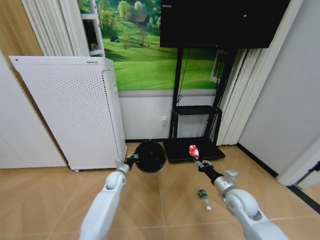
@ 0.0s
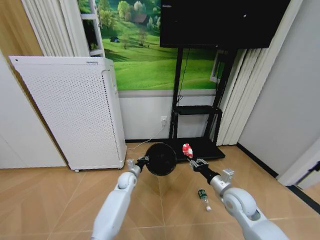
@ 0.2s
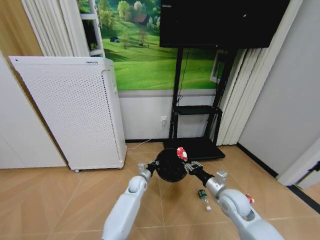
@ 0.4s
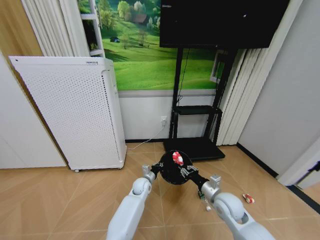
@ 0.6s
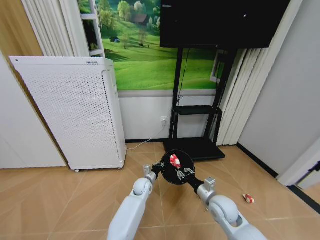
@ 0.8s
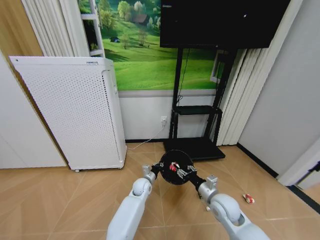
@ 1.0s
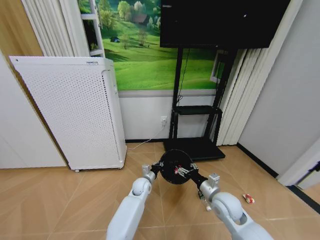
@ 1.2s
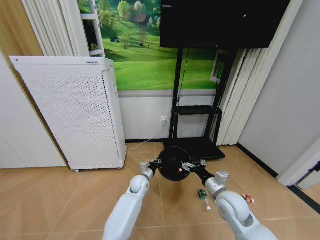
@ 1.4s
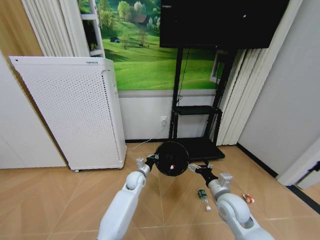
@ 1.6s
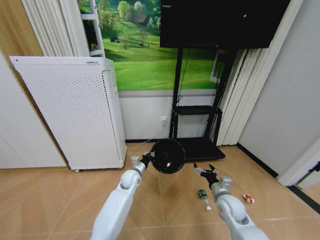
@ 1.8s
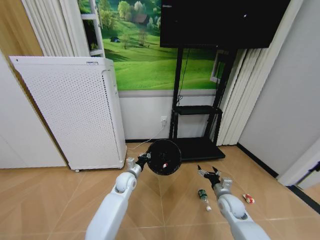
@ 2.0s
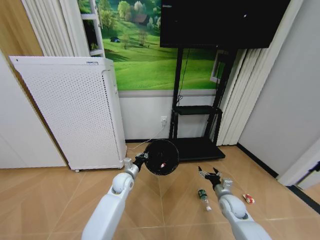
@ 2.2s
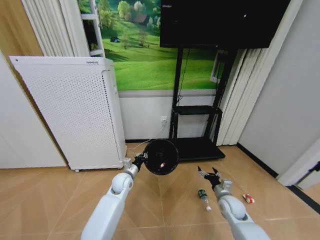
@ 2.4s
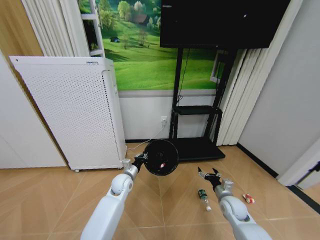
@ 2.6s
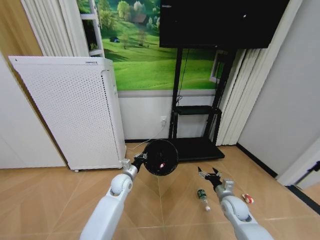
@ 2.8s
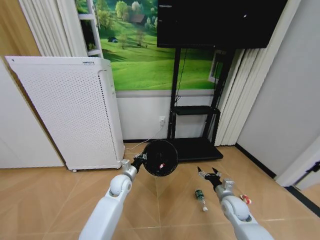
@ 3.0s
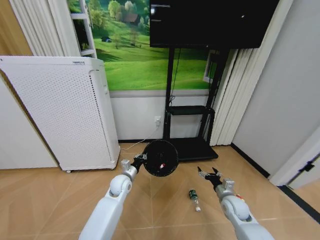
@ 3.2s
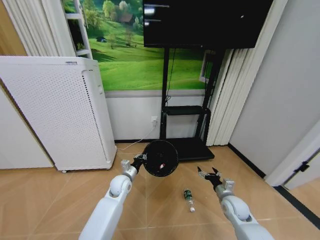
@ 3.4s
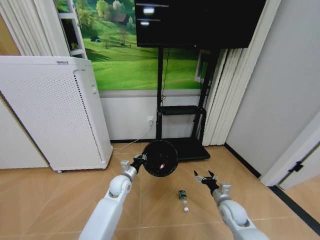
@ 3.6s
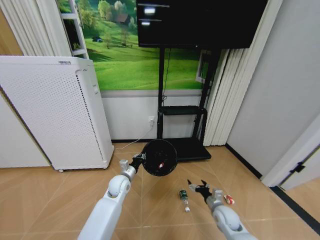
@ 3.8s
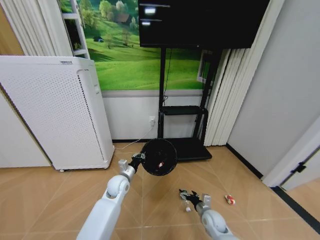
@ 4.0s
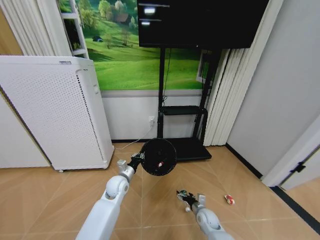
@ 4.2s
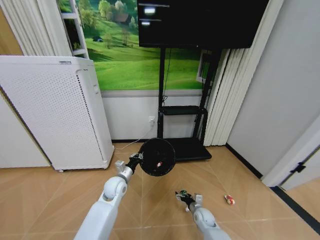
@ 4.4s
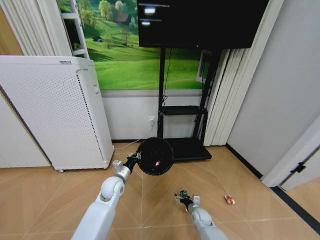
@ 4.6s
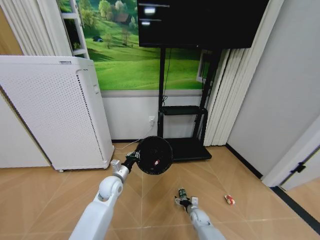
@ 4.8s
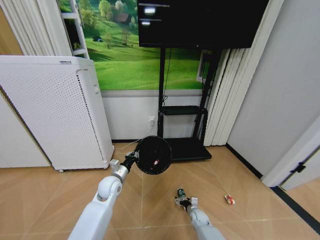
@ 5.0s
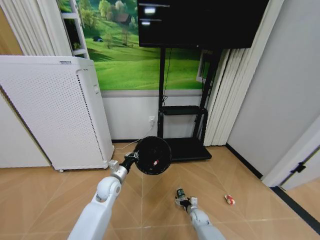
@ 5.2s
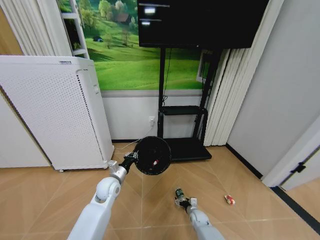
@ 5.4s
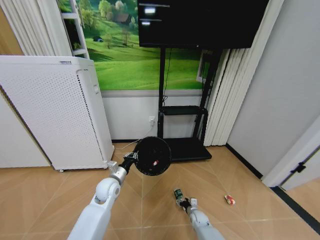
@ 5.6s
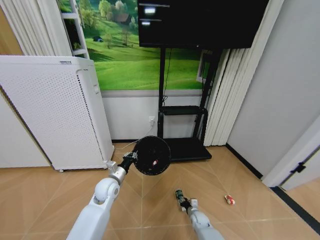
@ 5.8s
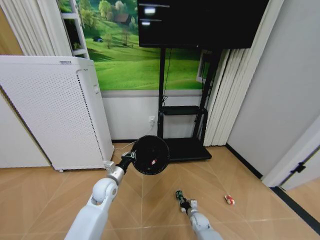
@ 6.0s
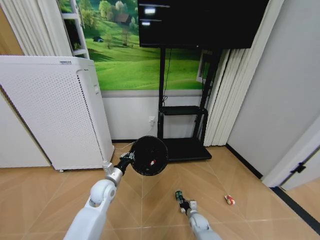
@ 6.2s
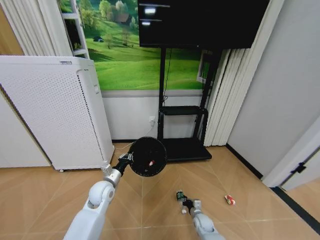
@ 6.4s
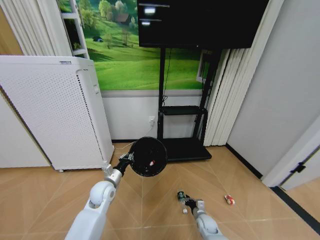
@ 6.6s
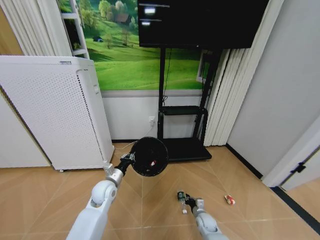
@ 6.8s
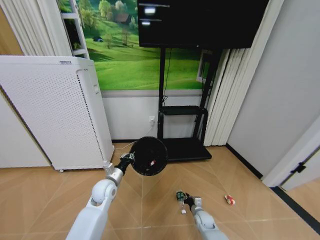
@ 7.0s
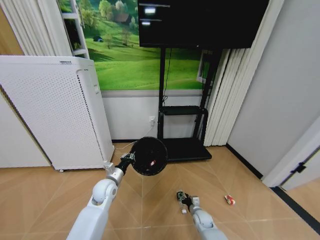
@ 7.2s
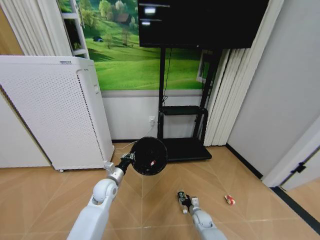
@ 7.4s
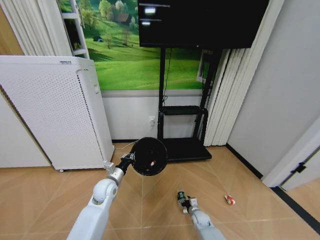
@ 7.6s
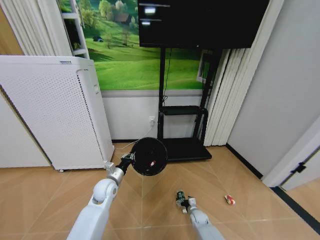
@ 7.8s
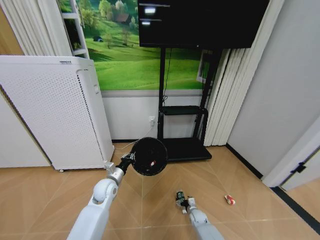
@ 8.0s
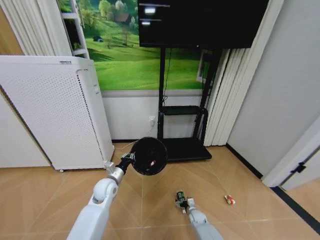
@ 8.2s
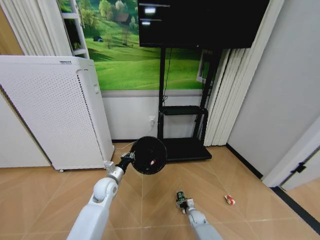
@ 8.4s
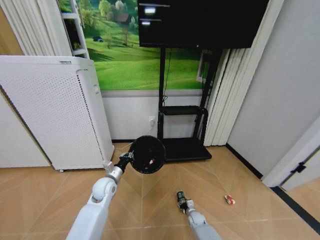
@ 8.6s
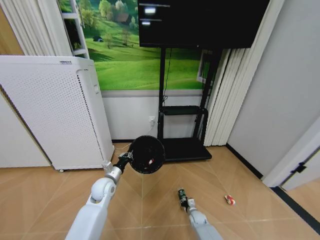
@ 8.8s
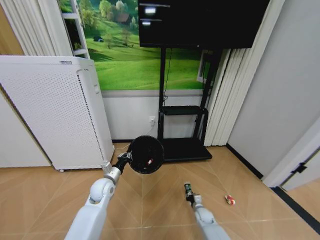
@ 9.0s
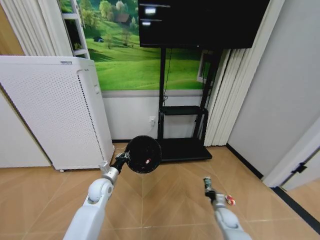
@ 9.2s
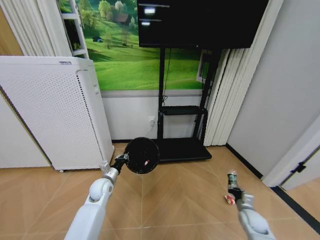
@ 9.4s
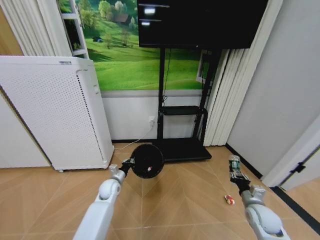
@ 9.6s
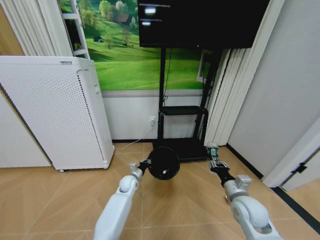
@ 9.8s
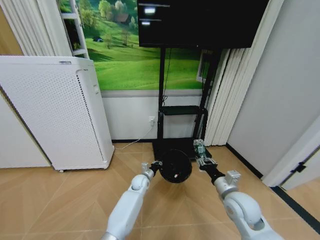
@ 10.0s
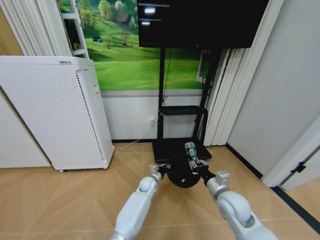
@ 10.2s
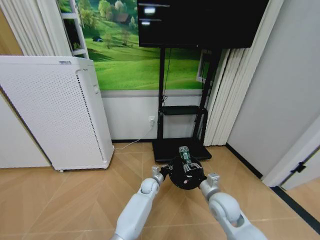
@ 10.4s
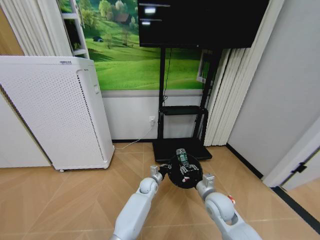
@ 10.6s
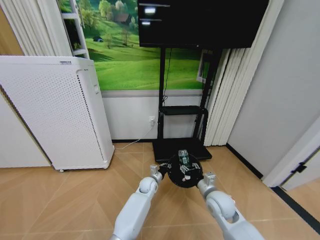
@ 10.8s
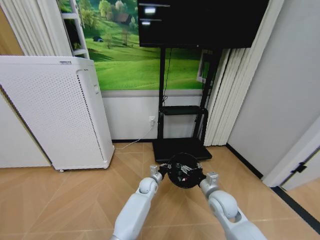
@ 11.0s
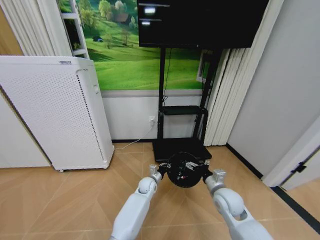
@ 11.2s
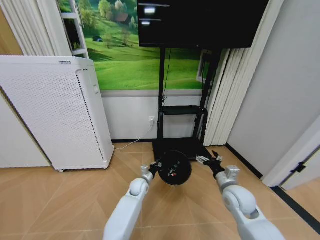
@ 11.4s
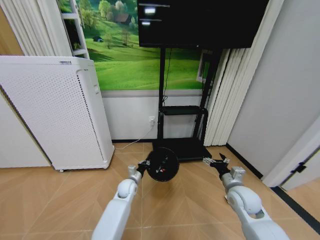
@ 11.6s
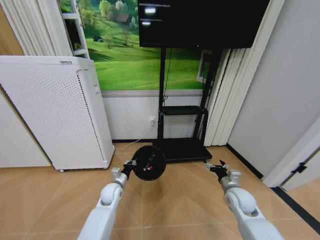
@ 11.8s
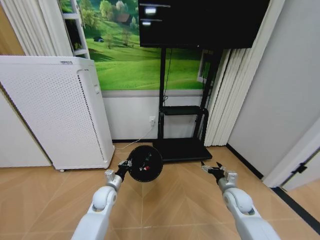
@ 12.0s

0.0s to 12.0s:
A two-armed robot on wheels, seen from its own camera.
Task of the whole recording: Pick up the trash bin and place the garbage on the floor into it.
0.0s to 1.6s: The left gripper goes about 10 cm to the right. Meanwhile the right gripper shifts by some 5 cm, and opens up.
1.6s to 3.0s: The left gripper moves to the left, approximately 5 cm. Meanwhile the right gripper moves downward and to the right, some 10 cm.
3.0s to 4.4s: The right gripper travels downward and to the left by about 15 cm.
4.4s to 6.0s: The right gripper heads downward, covering approximately 5 cm, and closes up.
6.0s to 7.6s: The right gripper opens up.
7.6s to 9.0s: The right gripper closes its fingers.
9.0s to 10.4s: The right gripper travels upward by approximately 30 cm. Meanwhile the left gripper shifts approximately 25 cm to the right and downward.
10.4s to 12.0s: The right gripper travels to the right by about 10 cm, and opens up. Meanwhile the left gripper heads to the left and backward, covering approximately 20 cm.

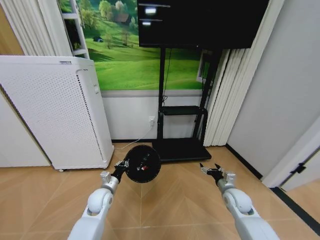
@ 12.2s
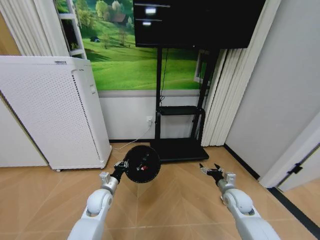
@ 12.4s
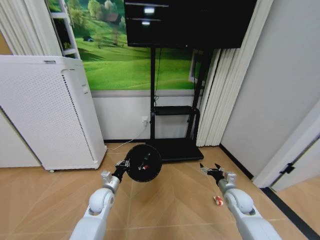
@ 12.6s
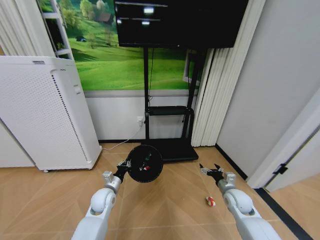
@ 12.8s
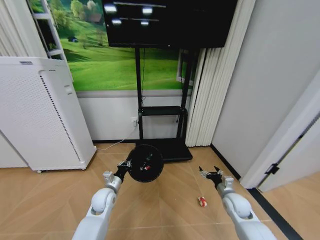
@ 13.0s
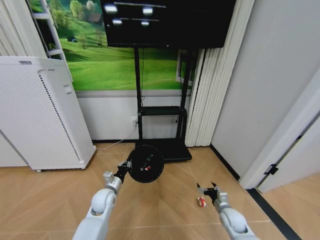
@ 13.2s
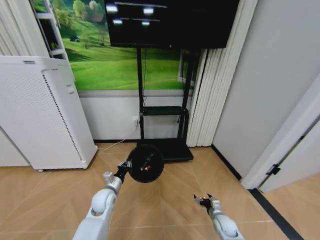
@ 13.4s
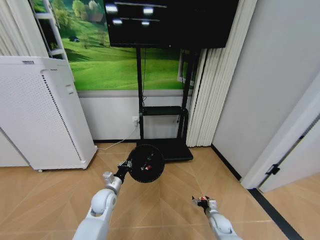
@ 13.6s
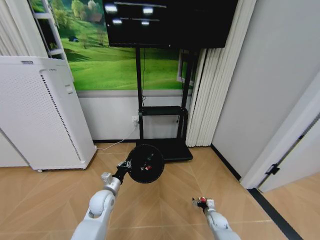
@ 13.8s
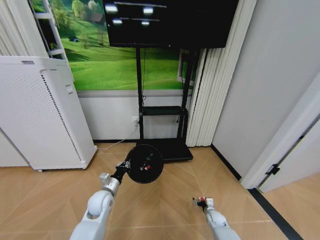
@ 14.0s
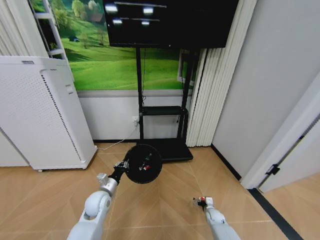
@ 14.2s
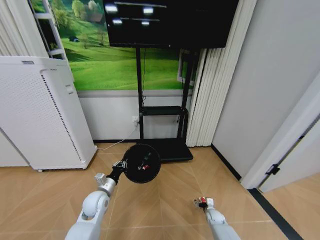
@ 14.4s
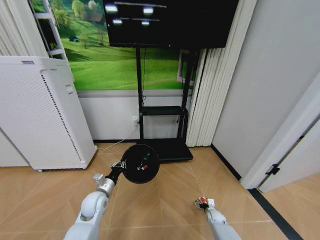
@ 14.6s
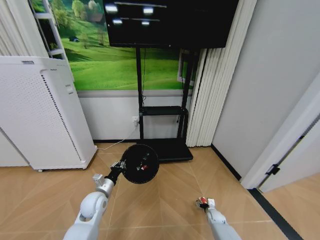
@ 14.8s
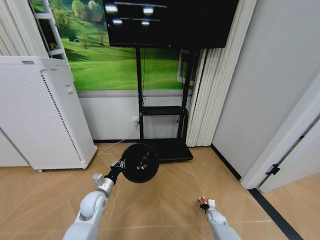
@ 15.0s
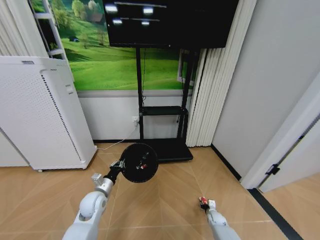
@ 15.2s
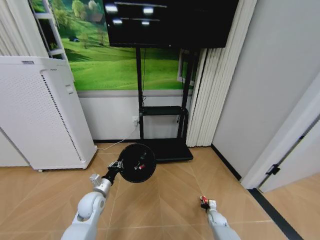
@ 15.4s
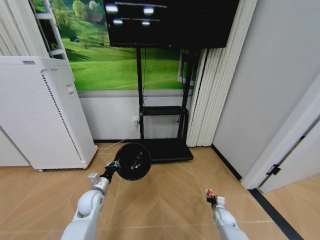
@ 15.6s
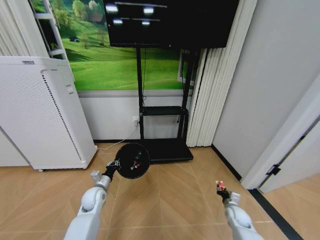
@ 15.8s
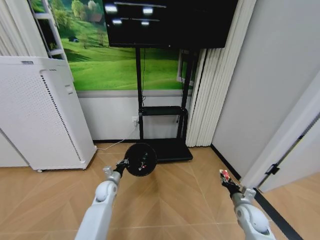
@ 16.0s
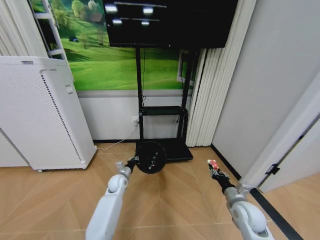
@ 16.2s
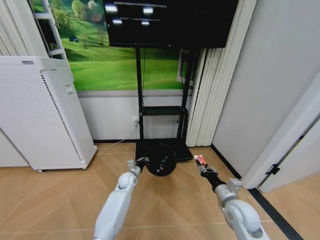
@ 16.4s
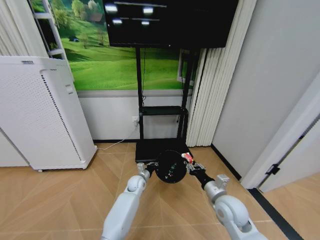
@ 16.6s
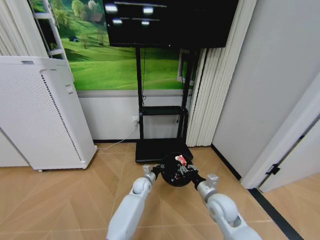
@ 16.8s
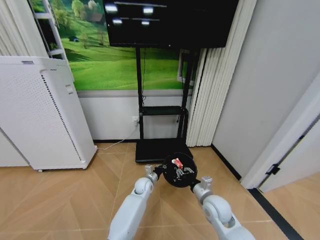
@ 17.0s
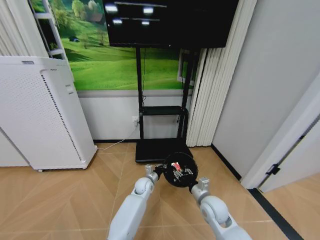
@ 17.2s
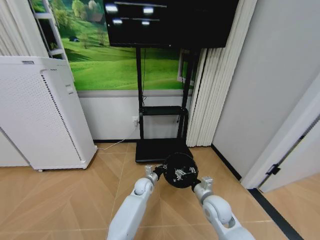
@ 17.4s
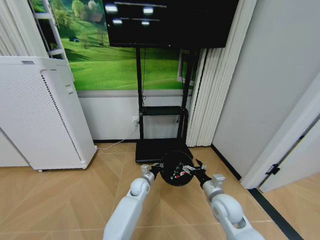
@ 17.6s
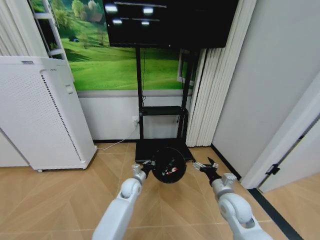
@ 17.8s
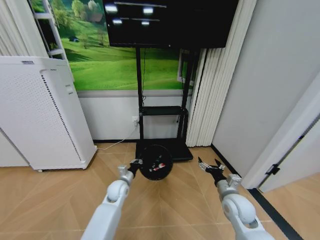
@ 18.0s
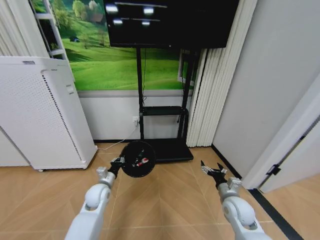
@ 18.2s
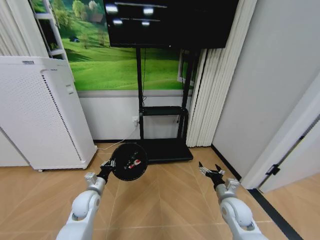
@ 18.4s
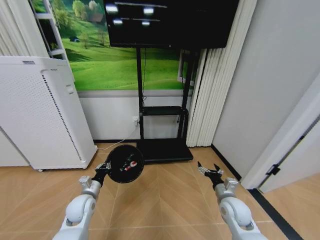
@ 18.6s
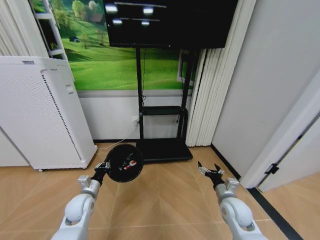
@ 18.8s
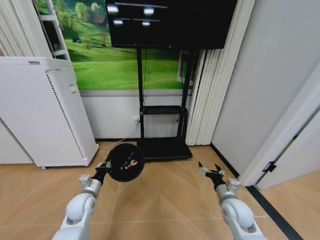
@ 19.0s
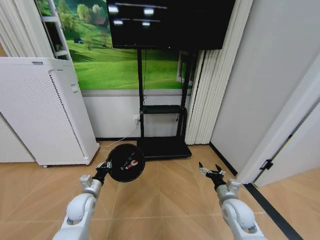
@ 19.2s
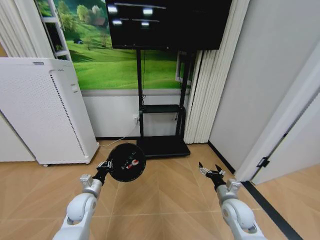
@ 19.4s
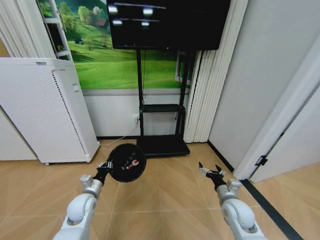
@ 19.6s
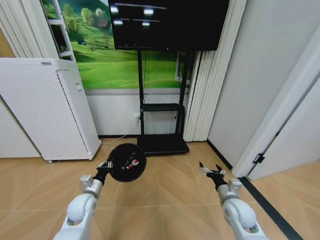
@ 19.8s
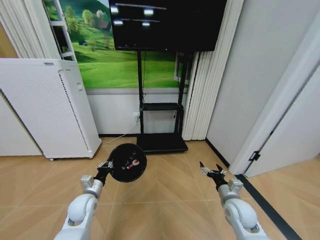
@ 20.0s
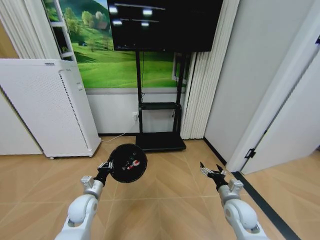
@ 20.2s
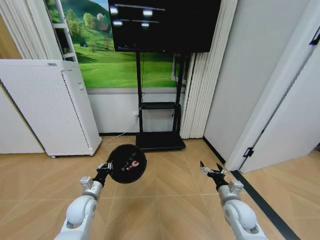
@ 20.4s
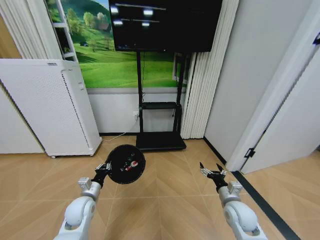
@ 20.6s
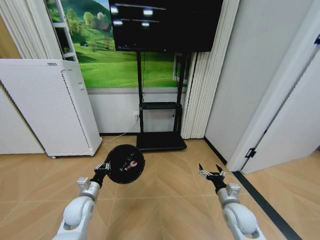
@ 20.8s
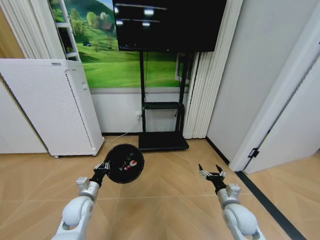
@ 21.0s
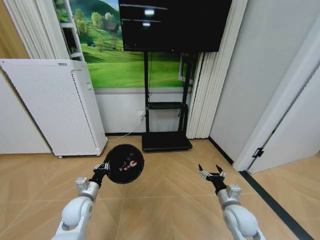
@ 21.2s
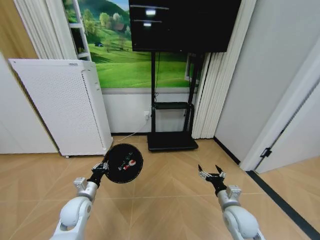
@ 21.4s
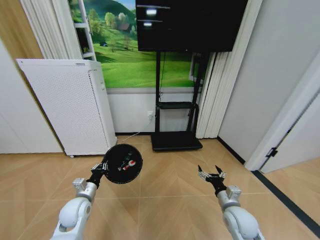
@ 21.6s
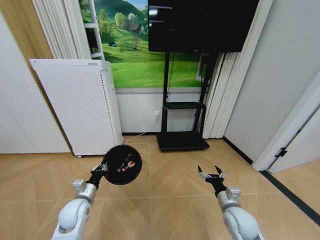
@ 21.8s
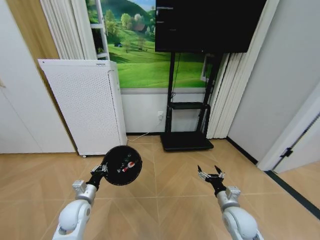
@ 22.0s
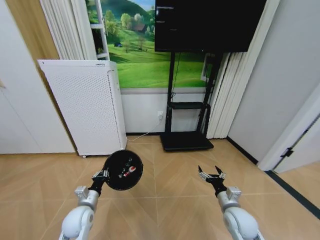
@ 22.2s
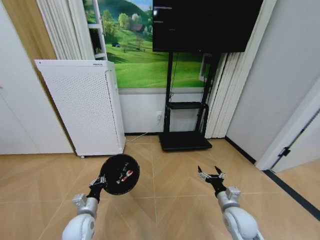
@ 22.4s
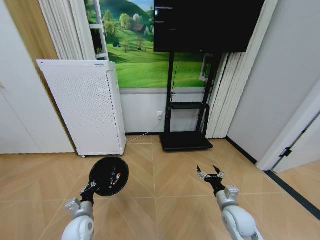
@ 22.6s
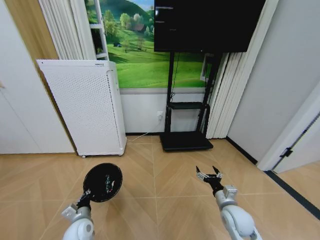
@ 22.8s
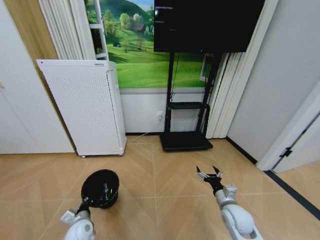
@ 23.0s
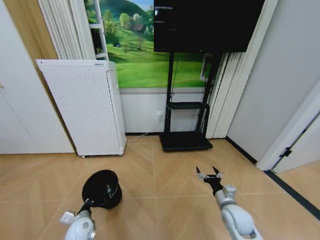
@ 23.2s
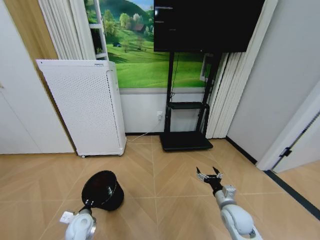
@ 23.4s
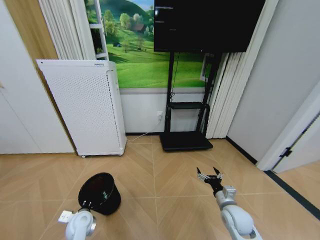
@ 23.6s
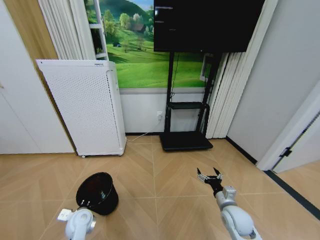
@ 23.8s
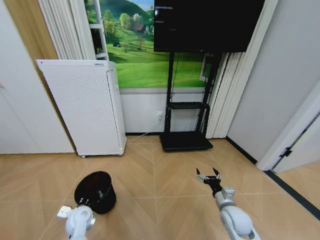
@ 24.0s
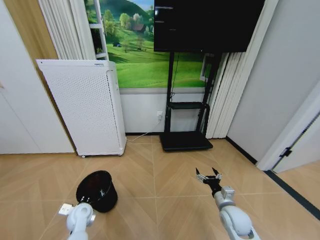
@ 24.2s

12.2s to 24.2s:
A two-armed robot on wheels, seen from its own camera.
Task of the whole recording: Pick up the trash bin and place the garbage on the floor into it.
12.2s to 13.8s: The right gripper heads downward, covering roughly 25 cm.
13.8s to 15.2s: The right gripper closes its fingers.
15.2s to 16.6s: The left gripper is displaced to the right, forward and downward by some 20 cm. The right gripper is displaced upward by about 35 cm.
16.6s to 18.2s: The right gripper shifts roughly 5 cm to the right, and opens up. Meanwhile the left gripper goes some 20 cm to the left, backward and upward.
18.2s to 19.8s: The left gripper goes about 10 cm to the left and backward.
21.2s to 22.6s: The left gripper shifts approximately 5 cm downward.
22.6s to 24.2s: The left gripper moves forward, roughly 5 cm.
